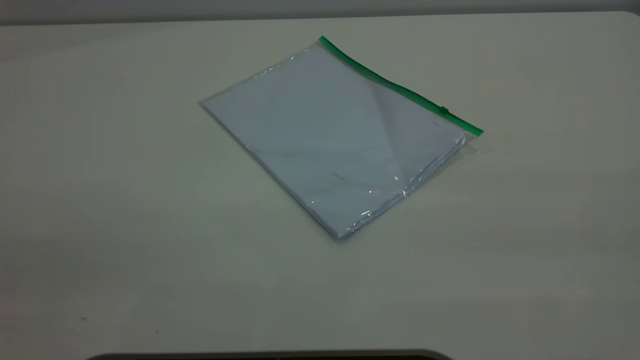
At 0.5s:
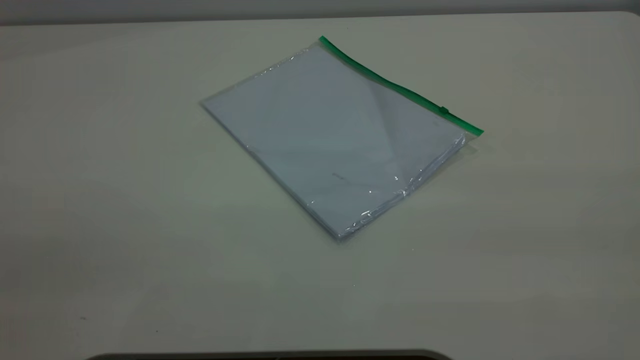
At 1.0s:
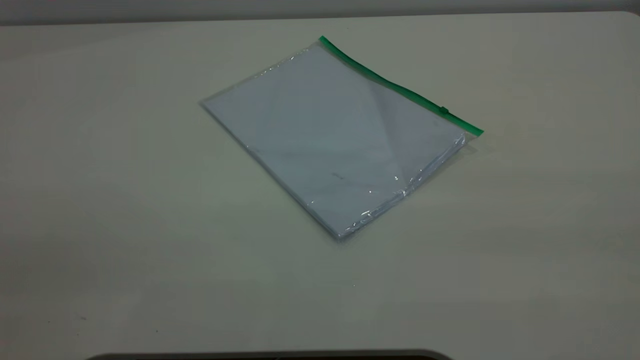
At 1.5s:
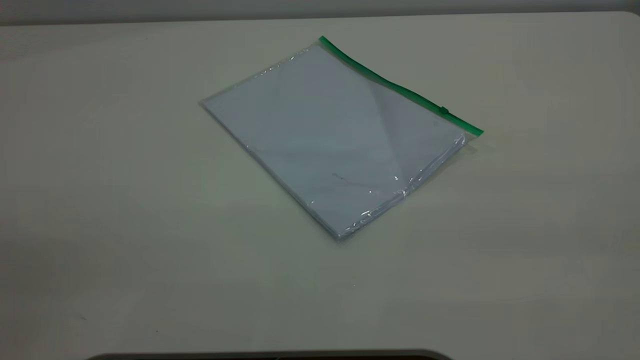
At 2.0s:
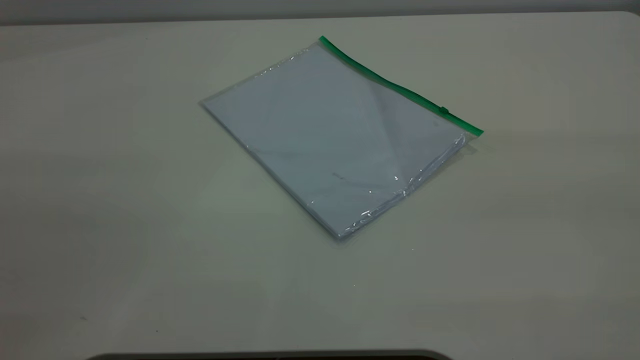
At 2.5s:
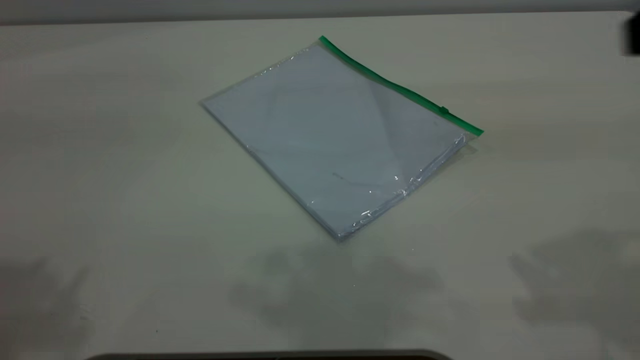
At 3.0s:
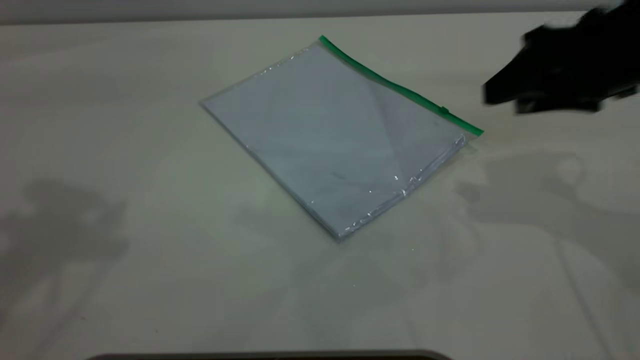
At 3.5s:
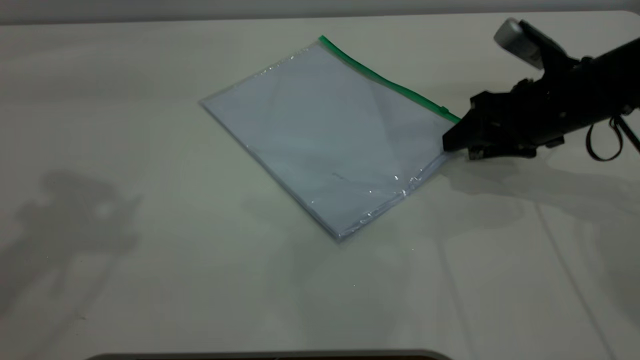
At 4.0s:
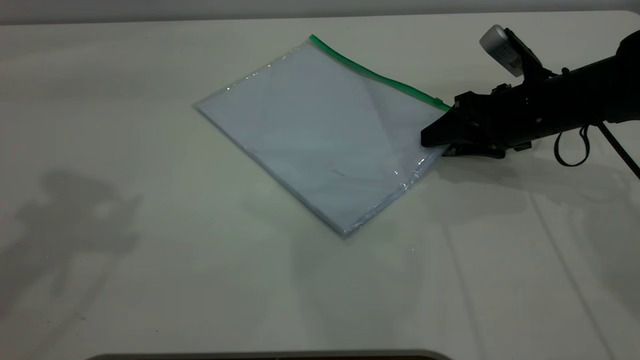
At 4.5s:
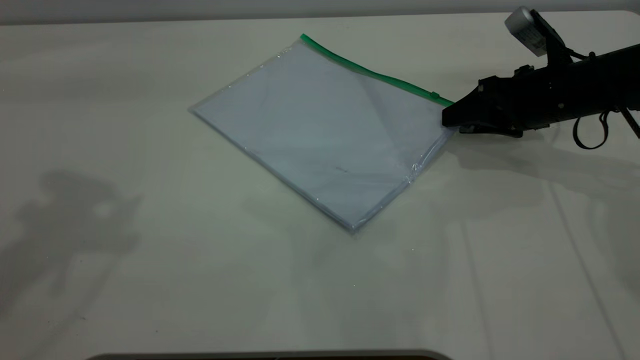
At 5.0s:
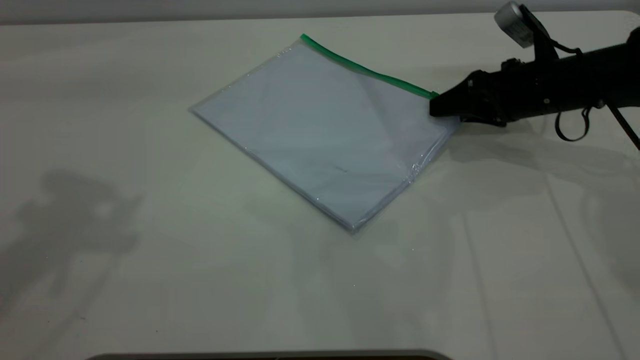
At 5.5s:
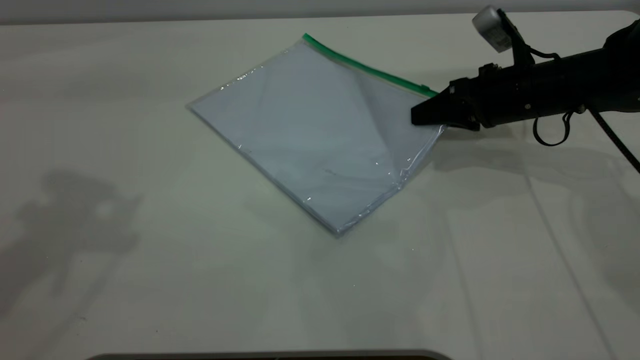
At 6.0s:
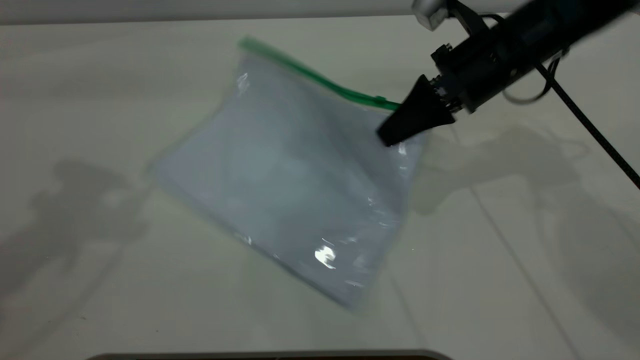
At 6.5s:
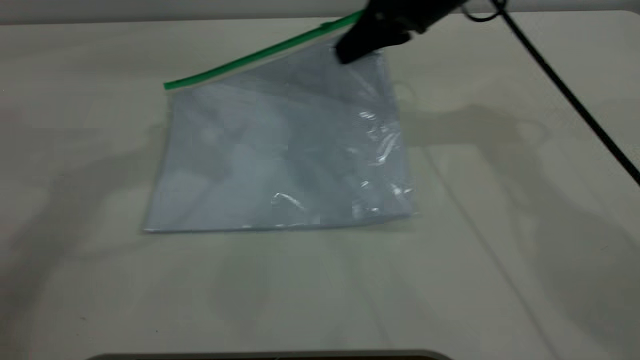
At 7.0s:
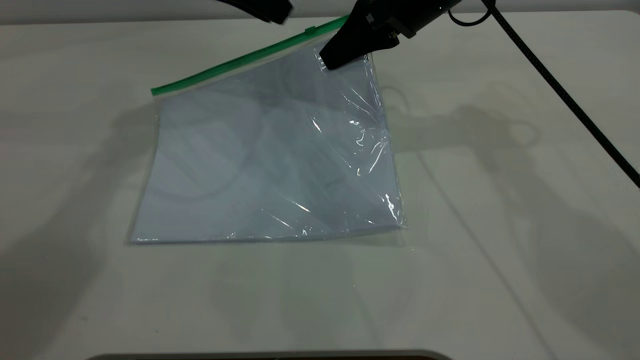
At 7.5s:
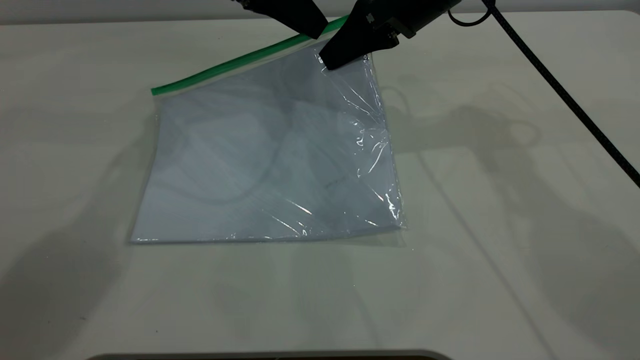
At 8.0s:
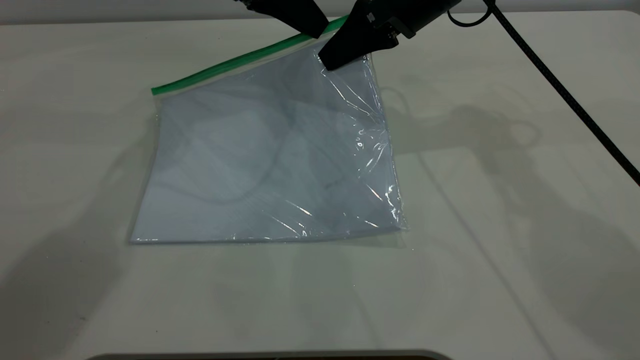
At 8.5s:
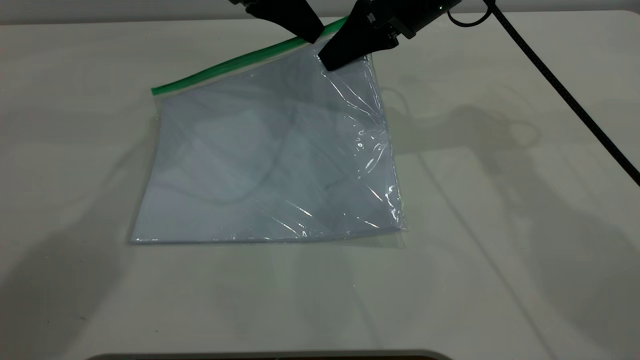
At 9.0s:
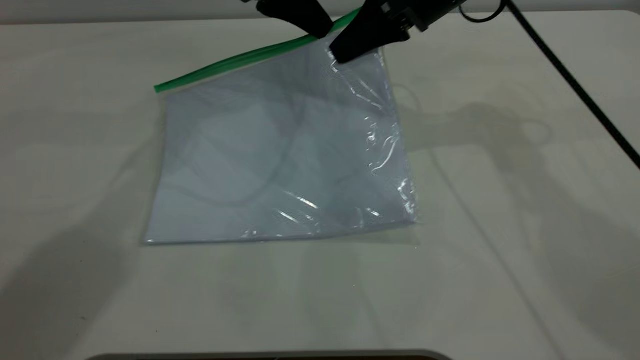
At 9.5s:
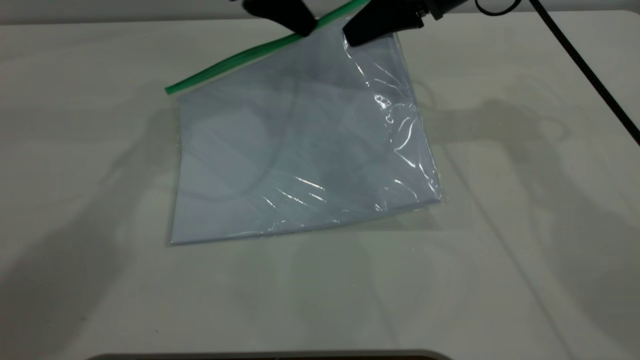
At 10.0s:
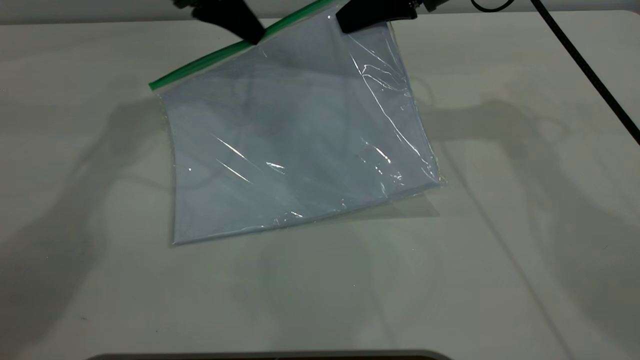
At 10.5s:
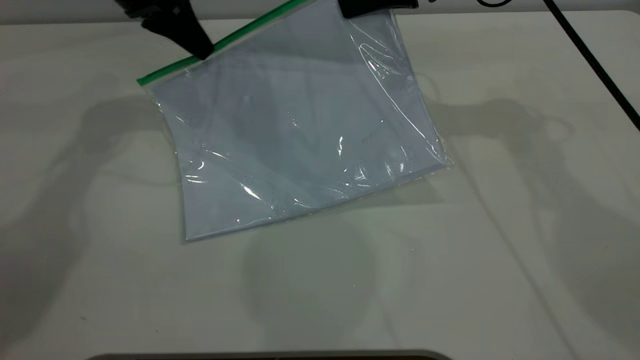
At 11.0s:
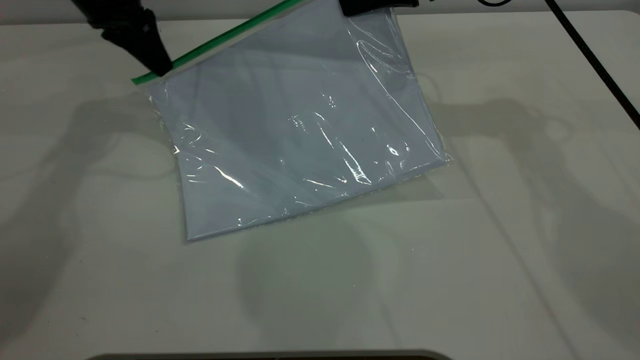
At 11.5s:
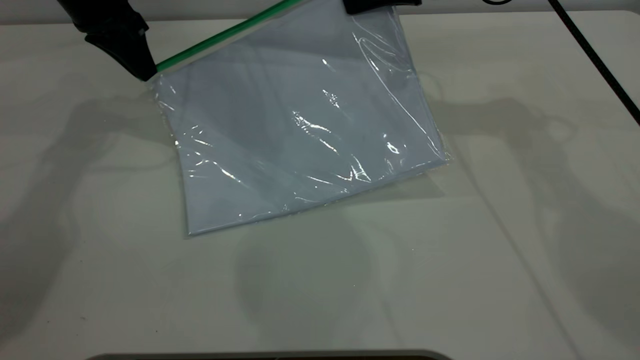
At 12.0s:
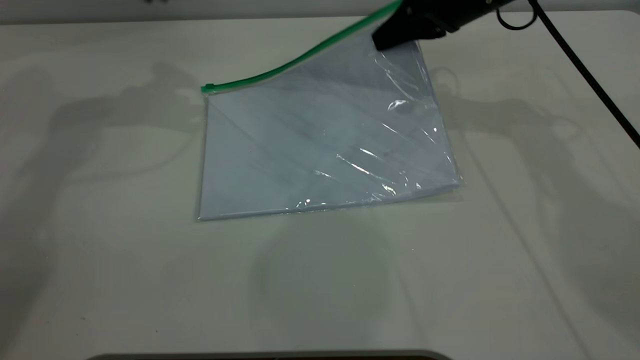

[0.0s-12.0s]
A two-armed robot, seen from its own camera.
Step, 0.0s to 5.5s: Pick up the transparent plastic bag with the right gripper.
Step, 6.0s to 11.5s: Pulling up the zipper on the transparent plastic bag with the left gripper to close it.
2.0s to 4.0s: The left gripper goes approximately 25 cm forward. Meanwhile the right gripper moves forward and downward, some 50 cm.
4.0s to 6.0s: The right gripper goes approximately 10 cm upward and to the left, and closes up.
6.0s to 8.0s: The right gripper moves to the left and upward, roughly 10 cm, while the left gripper moves forward, to the right and downward, some 25 cm, and closes its fingers.
8.0s to 10.0s: The left gripper is displaced to the left by some 5 cm, and closes its fingers.
10.0s to 12.0s: The right gripper changes place by about 5 cm. Meanwhile the left gripper travels upward and to the left by approximately 10 cm, and opens its fingers.
